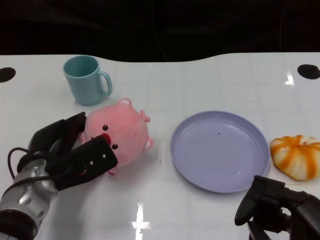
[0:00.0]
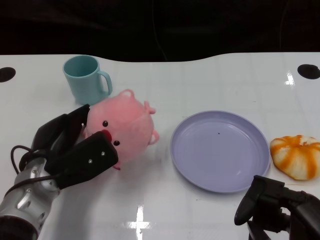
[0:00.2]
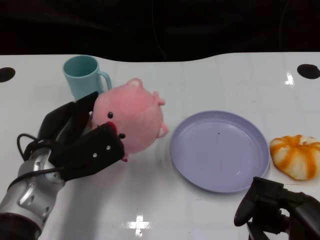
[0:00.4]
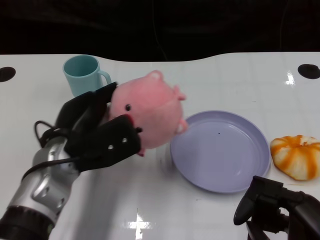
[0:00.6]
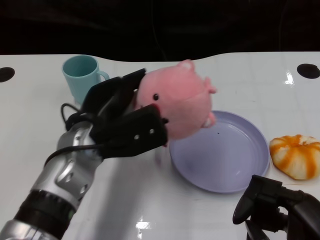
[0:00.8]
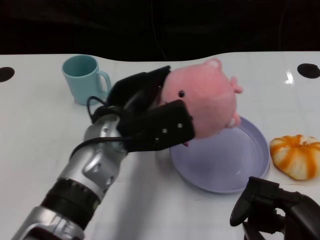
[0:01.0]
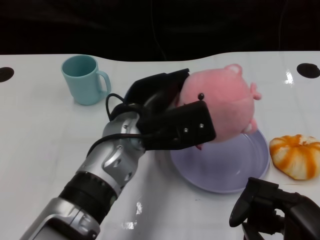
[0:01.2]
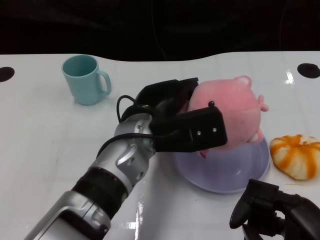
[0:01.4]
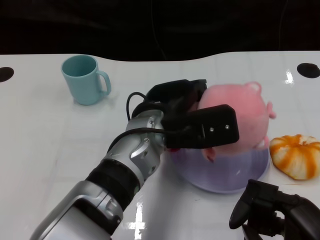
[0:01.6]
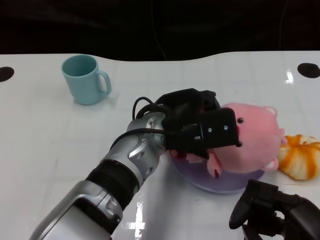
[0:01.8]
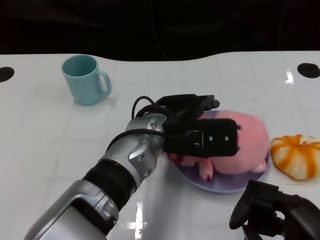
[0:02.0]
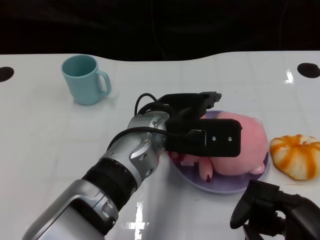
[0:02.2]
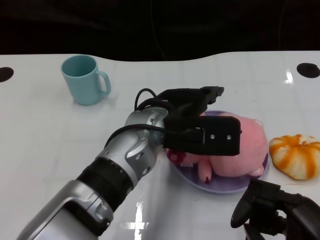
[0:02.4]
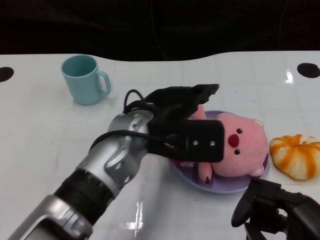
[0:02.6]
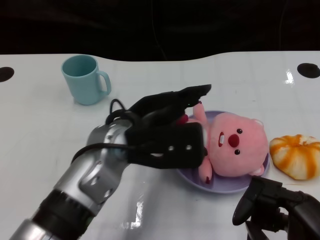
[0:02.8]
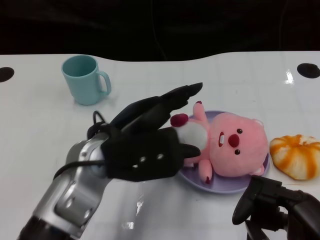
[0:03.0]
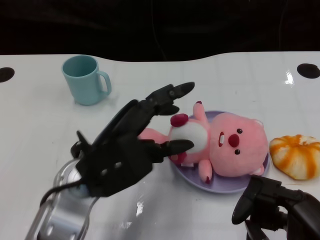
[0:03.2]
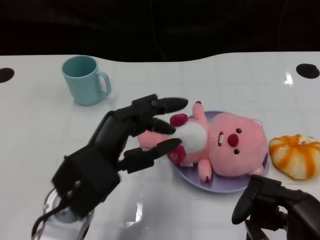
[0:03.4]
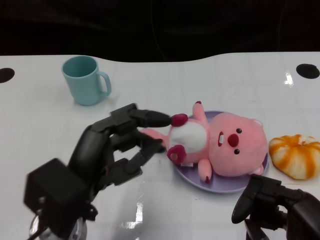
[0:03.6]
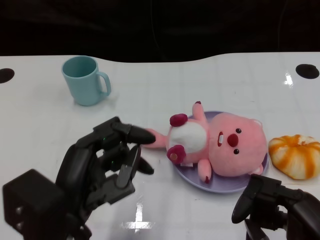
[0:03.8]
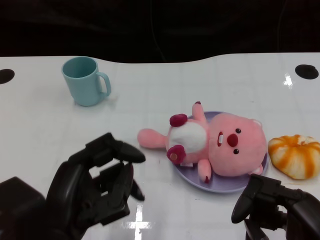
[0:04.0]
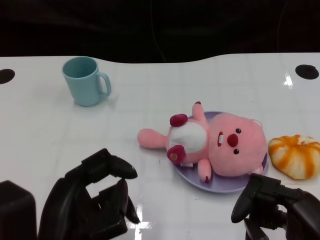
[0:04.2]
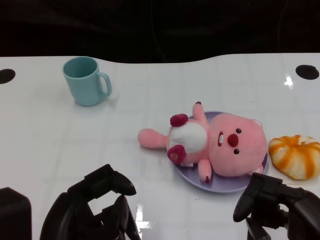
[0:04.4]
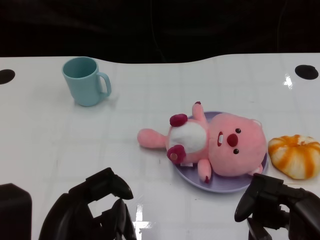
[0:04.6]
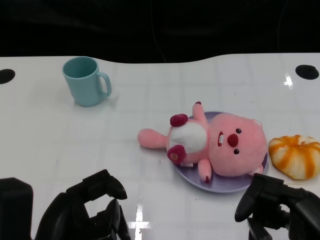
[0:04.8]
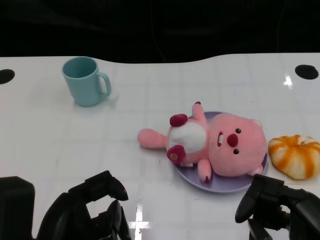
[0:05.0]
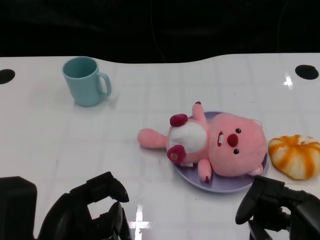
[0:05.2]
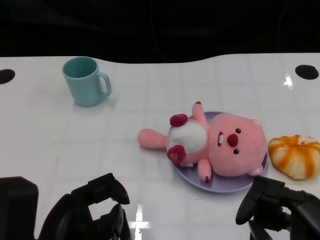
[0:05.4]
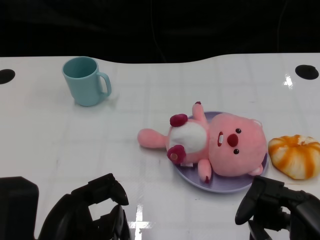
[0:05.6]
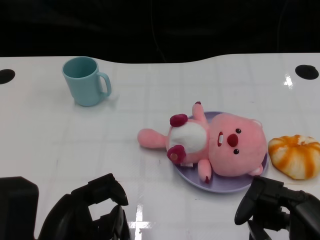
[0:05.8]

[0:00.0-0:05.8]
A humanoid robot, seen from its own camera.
Task of the whole recording: Pick up the doll on one side of the plate and place it into the plate.
Step, 0.4 to 2.0 s: Place the pink doll into the plate with the left gripper.
0.0 to 1.4 s: The left hand shifts about 15 cm to the right and upward.
2.8 to 4.4 s: The left hand heads backward and to the left, covering some 20 cm.
4.4 to 5.8 s: The hands move only a little.

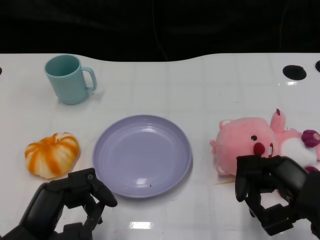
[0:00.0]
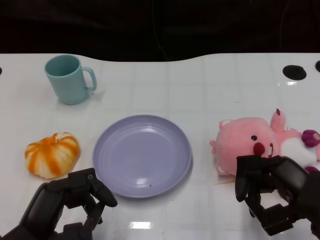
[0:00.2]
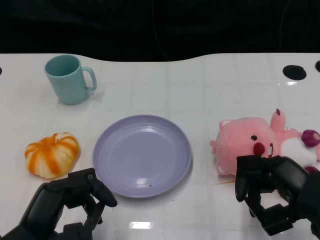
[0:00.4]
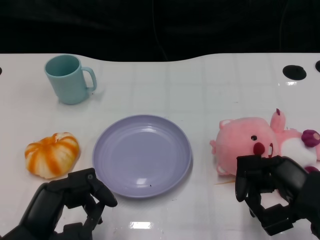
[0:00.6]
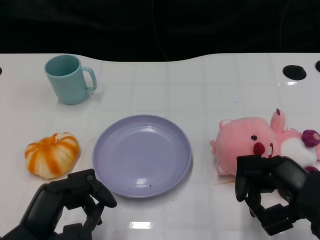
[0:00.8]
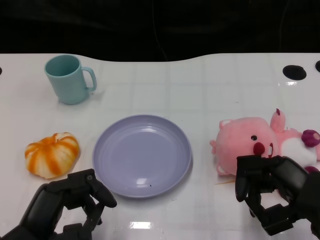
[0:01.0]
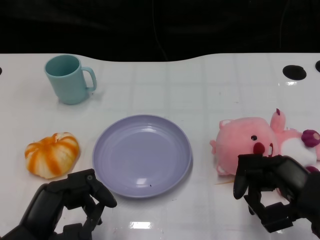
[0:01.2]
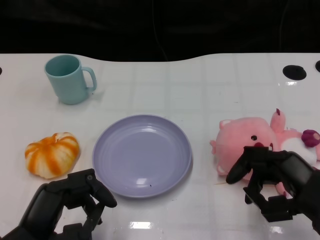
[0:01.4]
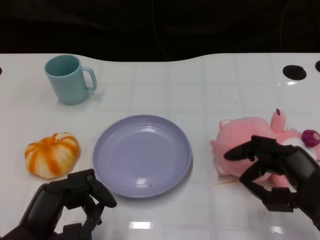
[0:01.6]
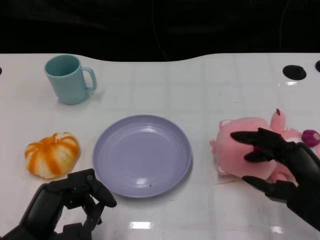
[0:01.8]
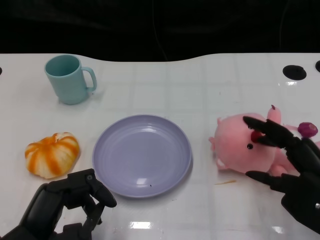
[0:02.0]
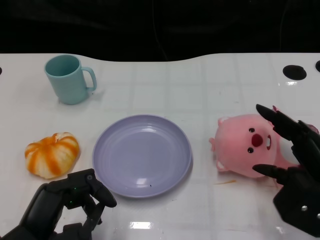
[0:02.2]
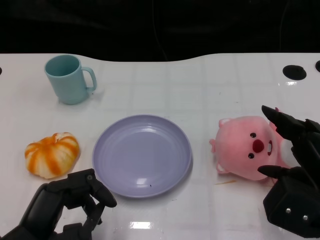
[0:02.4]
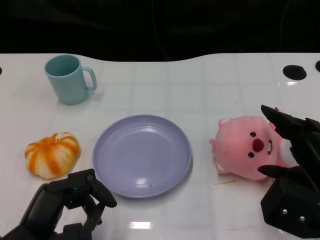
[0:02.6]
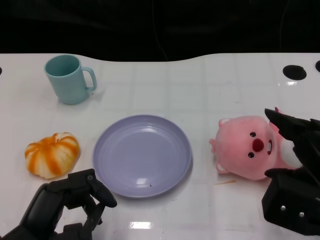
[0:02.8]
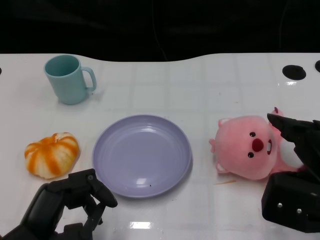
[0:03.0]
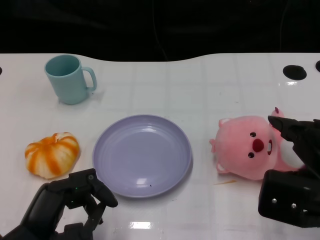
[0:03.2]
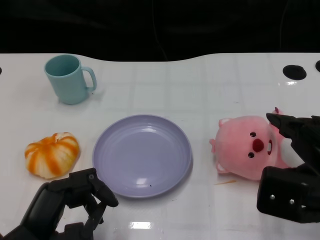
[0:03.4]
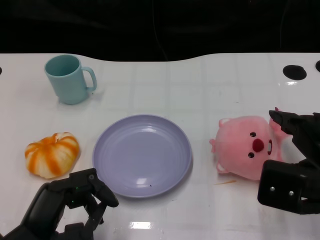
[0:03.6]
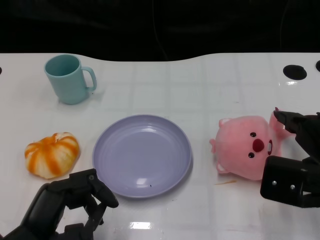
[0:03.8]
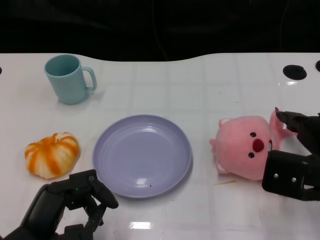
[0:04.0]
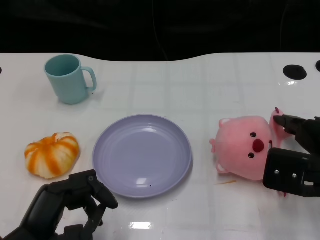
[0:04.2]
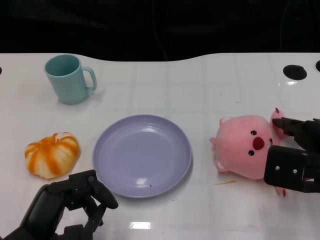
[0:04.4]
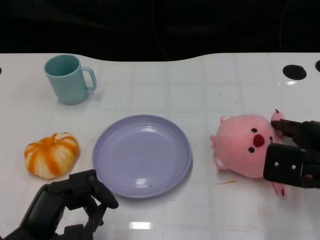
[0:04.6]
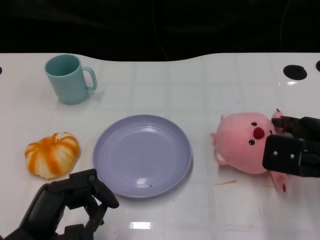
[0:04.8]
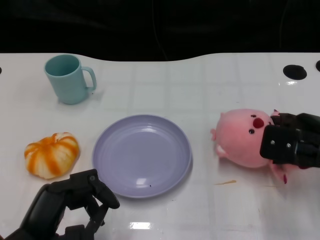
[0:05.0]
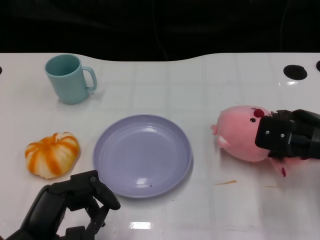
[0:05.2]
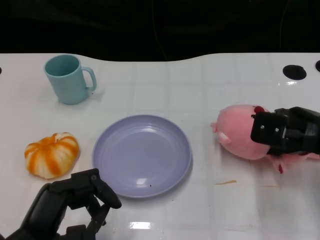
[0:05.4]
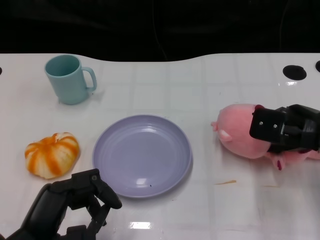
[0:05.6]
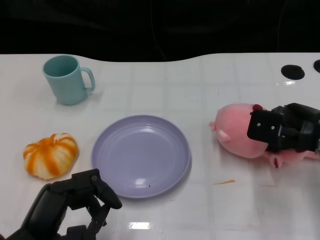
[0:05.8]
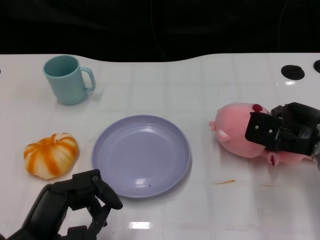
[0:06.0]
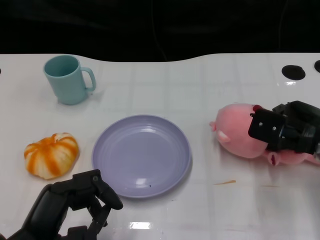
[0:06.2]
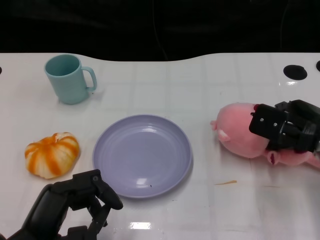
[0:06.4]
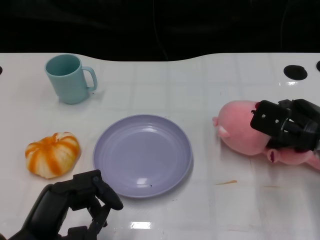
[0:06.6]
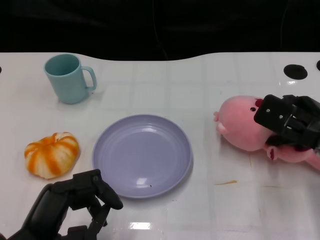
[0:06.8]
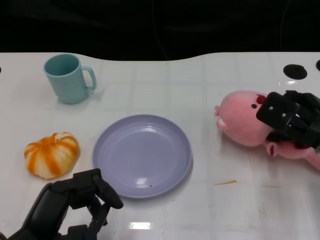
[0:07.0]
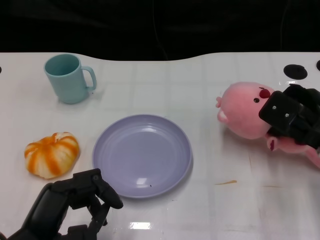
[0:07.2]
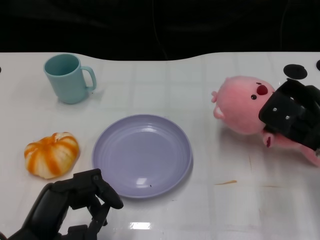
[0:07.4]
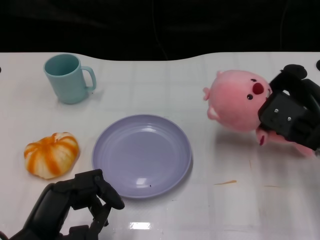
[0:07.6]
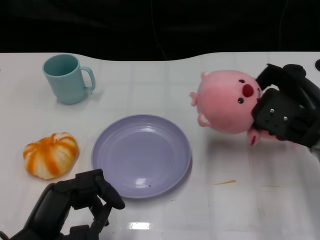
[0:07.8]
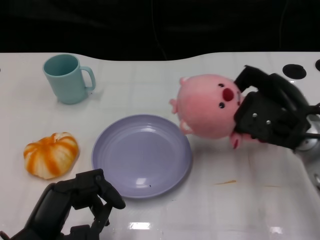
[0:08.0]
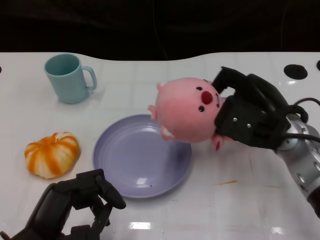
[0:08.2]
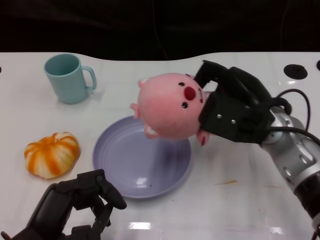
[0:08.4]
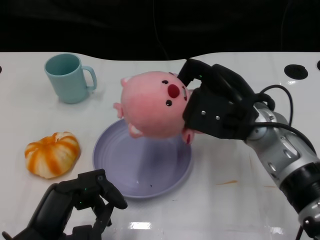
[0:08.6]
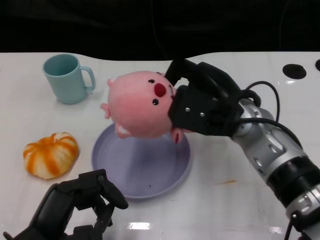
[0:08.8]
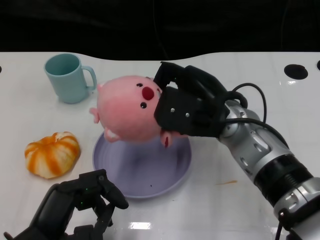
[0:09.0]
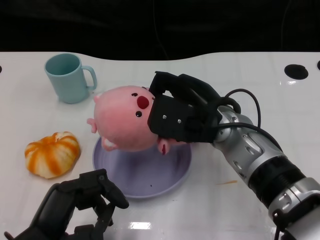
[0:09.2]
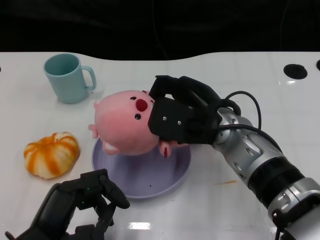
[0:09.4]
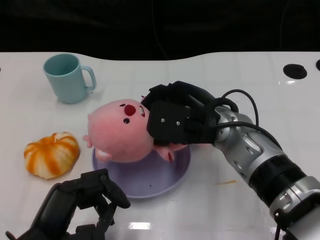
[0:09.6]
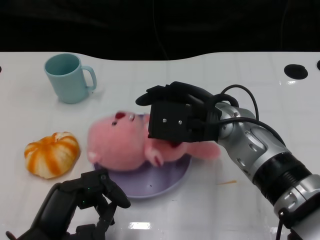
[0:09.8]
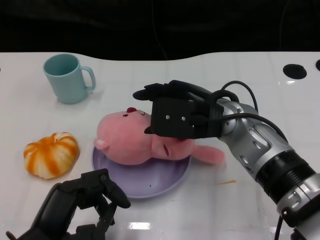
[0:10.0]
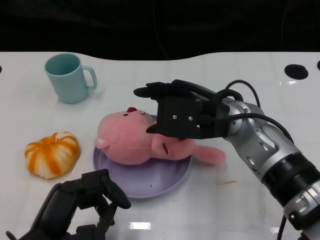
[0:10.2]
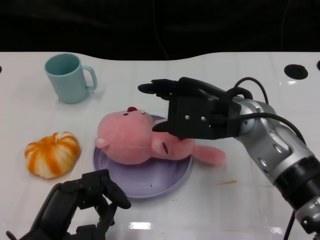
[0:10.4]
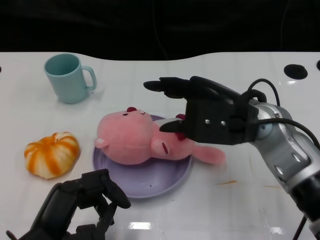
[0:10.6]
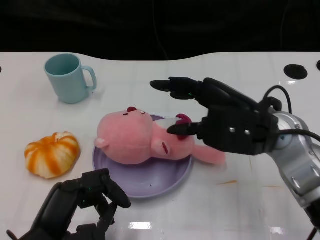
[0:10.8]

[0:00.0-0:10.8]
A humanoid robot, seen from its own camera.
Task of the whole recording: Pick up the doll on the other side of the plate and place it into the plate.
Step, 1.2 to 8.2 s: Grasp the pink doll with the right gripper.
Step, 8.4 to 10.6 s: Place the pink doll into the plate with the right gripper.
3.0 to 4.6 s: The right hand moves forward, about 5 cm.
4.6 to 6.2 s: The right hand goes approximately 5 cm forward.
7.8 to 9.2 s: The right hand heads to the left, covering roughly 15 cm.
9.2 to 10.8 s: The right hand is displaced to the right by about 5 cm.

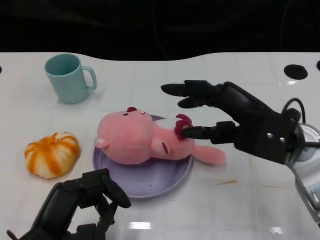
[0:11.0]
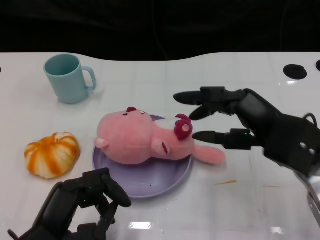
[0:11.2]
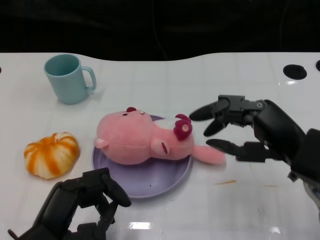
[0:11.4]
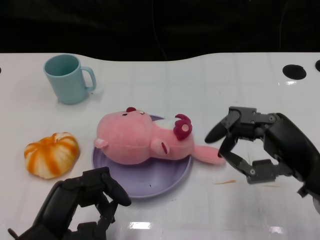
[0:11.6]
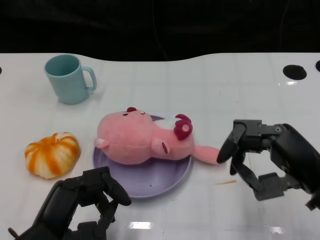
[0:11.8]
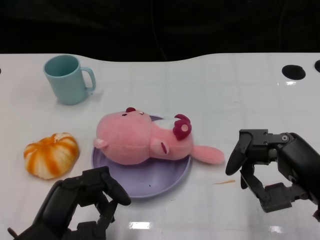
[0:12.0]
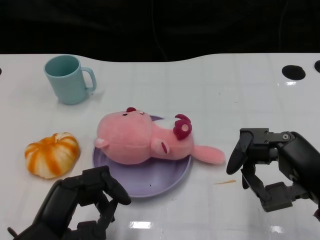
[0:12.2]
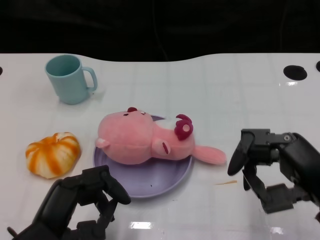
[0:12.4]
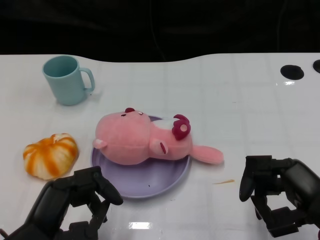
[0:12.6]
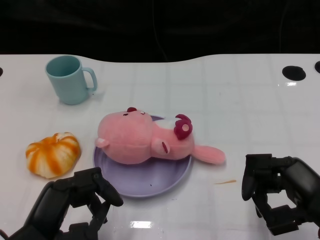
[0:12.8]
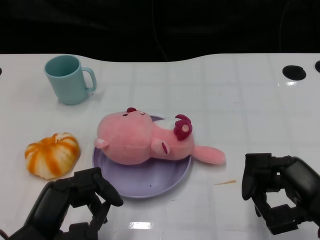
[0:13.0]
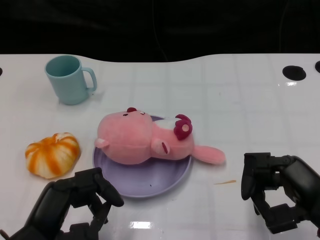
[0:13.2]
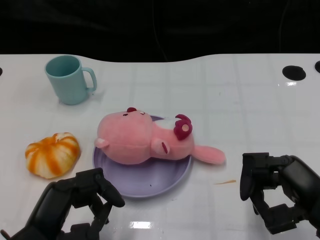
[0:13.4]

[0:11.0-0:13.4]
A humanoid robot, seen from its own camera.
Task of the whole recording: Pick up the doll on the other side of the plate and place it into the plate.
11.0 to 12.2 s: The right hand heads backward and to the right, covering approximately 10 cm.
12.2 to 13.4 s: The hands stay close to where they were, moving slightly.

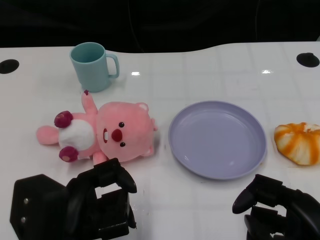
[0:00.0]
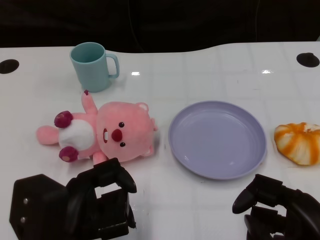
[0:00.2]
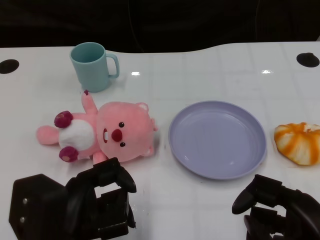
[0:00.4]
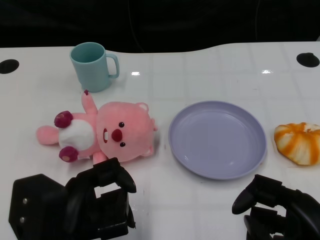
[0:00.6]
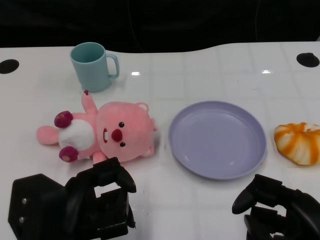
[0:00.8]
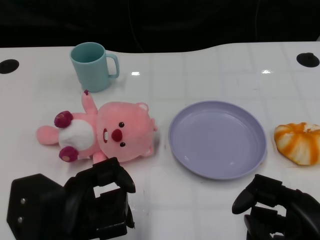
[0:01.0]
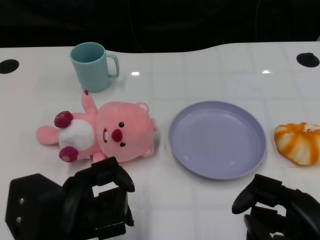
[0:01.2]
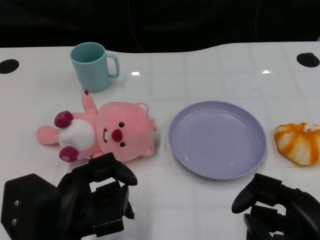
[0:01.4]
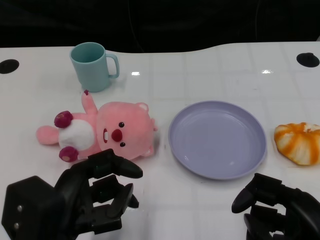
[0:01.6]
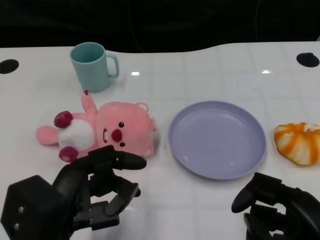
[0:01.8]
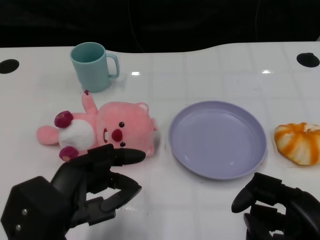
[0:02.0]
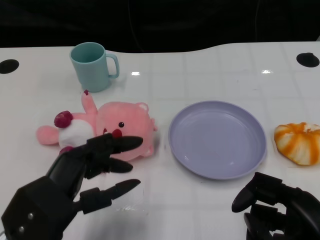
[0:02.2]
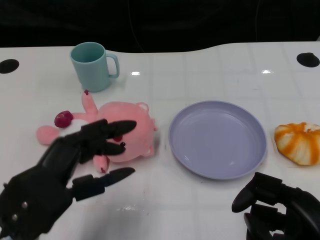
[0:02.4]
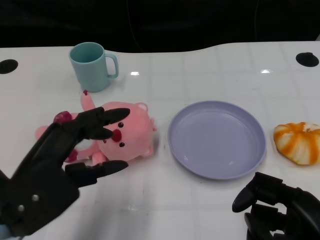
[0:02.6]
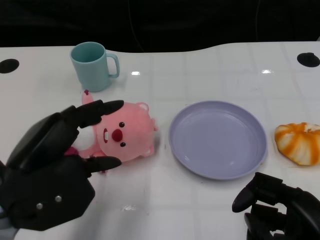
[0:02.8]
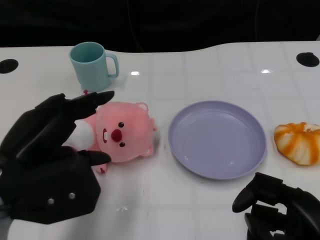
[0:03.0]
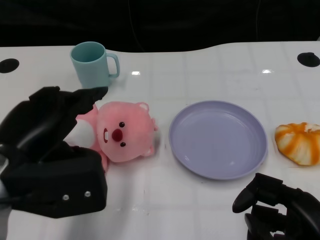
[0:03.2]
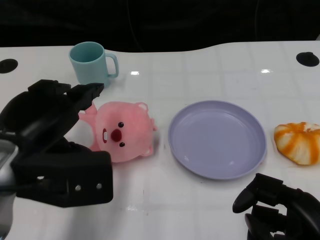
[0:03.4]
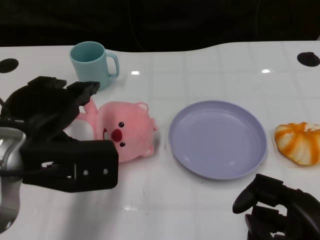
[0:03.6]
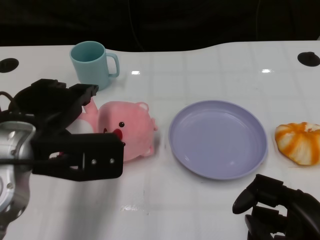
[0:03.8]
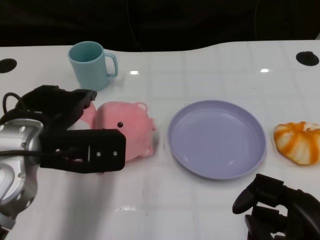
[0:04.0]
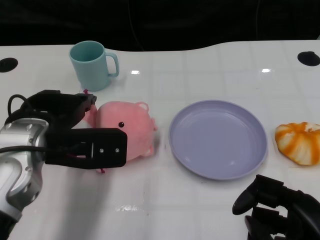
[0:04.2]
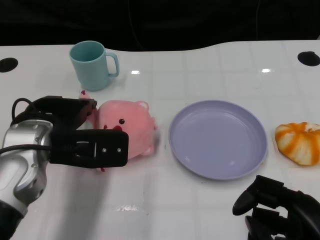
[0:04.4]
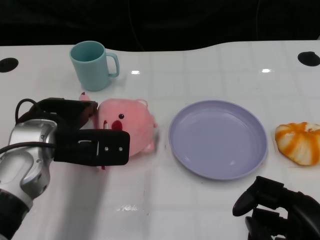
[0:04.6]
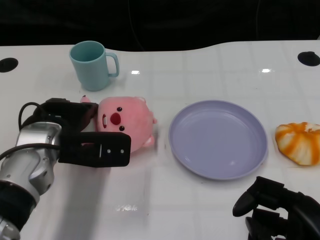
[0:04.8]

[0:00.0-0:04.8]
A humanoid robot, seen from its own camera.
Task of the whole recording: Pick up the doll on one side of the plate and place it into the plate.
1.6 to 3.2 s: The left hand moves upward and forward, some 10 cm.
3.2 to 4.8 s: The left hand moves forward and downward, some 10 cm.
